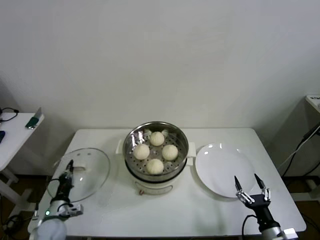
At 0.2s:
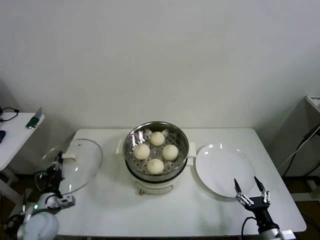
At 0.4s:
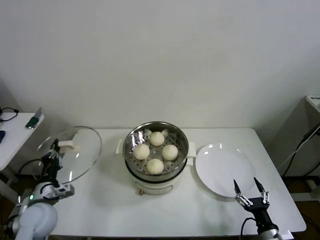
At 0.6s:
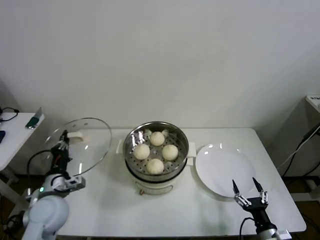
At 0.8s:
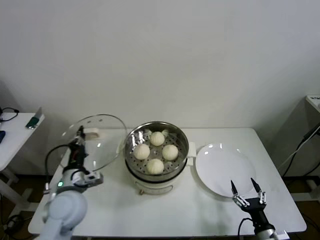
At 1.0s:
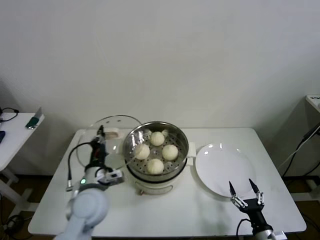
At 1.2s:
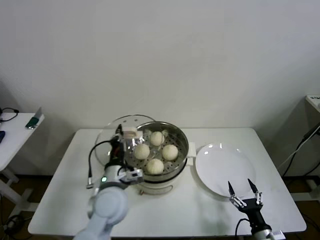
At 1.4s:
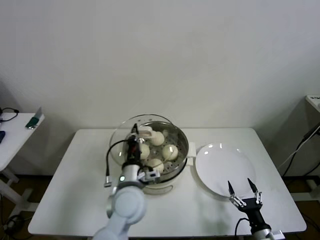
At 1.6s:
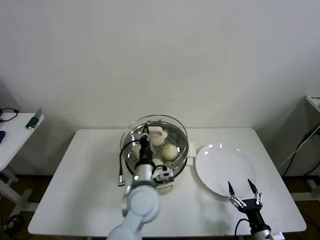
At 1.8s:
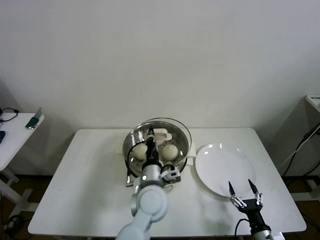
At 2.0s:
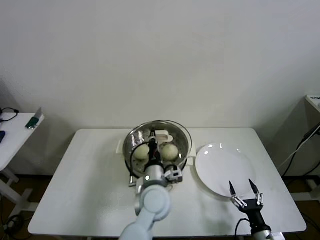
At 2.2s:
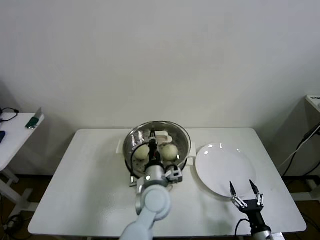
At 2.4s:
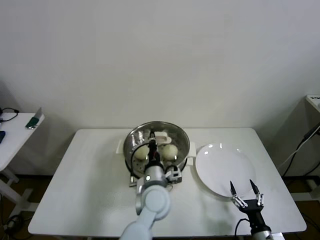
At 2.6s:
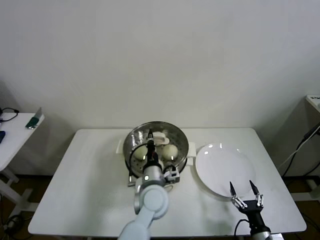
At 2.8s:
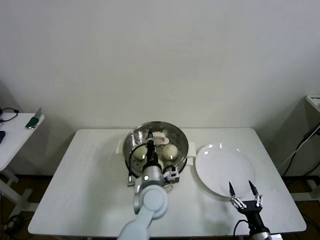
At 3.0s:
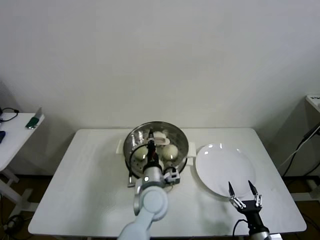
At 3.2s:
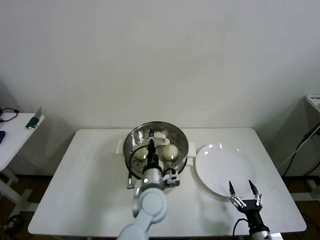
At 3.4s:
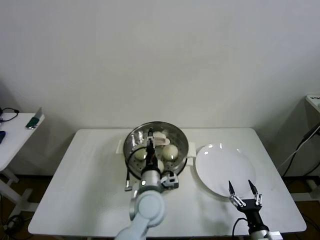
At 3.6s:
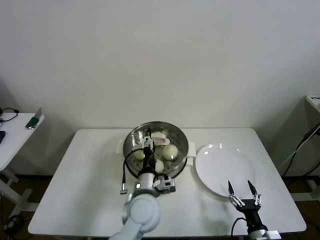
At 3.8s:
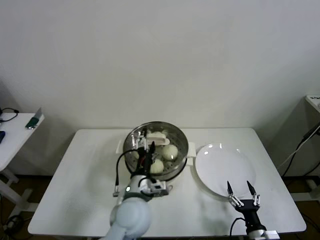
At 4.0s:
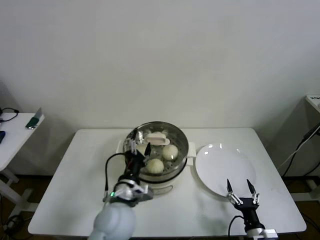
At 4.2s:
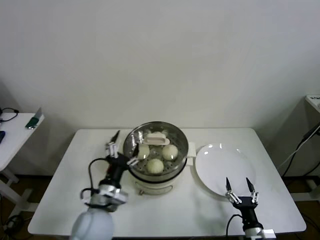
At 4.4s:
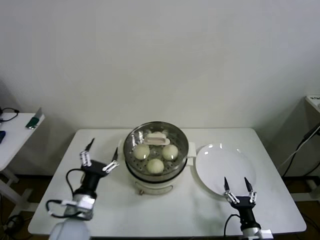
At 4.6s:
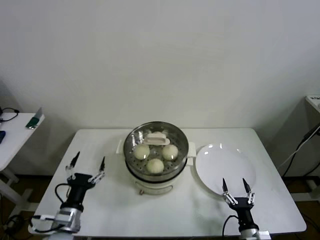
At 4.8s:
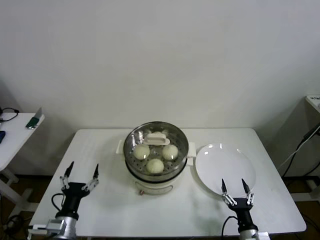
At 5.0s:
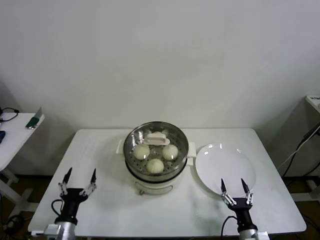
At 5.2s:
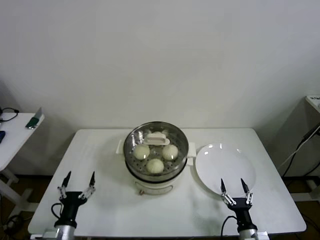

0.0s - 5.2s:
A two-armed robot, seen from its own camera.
Step, 0.0s - 3.8s: Place the pot lid on the steamer with left gripper.
0.0s - 1.8s: The left gripper is displaced to the right and upward by approximately 40 cm.
1.8s - 3.4s: The left gripper opens.
3.4s - 5.2s: The left gripper goes approximately 30 cm to the left and backward, and opens.

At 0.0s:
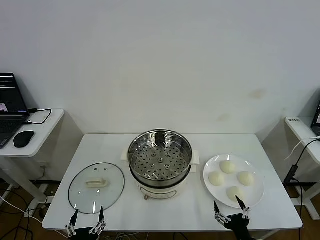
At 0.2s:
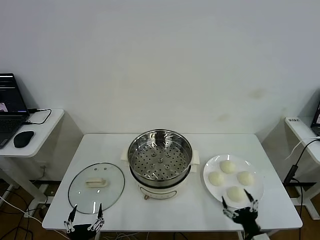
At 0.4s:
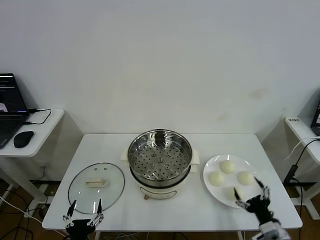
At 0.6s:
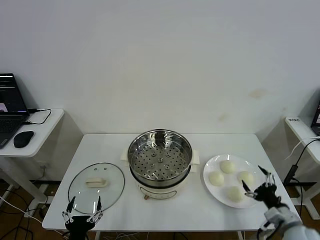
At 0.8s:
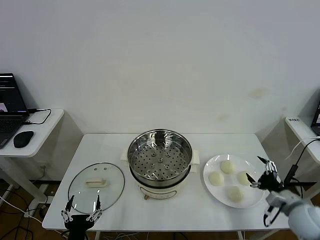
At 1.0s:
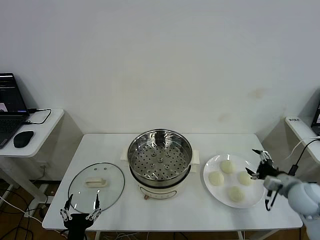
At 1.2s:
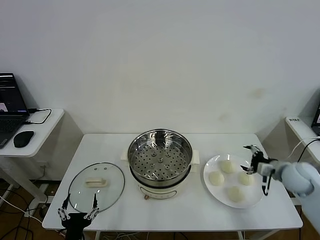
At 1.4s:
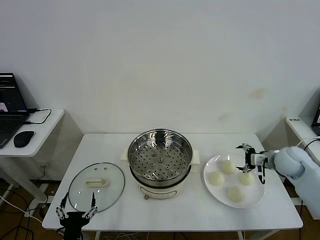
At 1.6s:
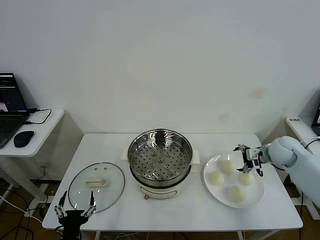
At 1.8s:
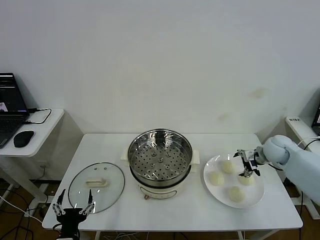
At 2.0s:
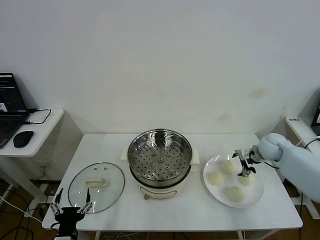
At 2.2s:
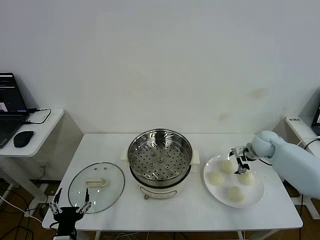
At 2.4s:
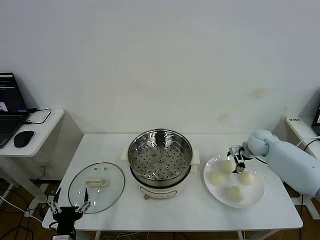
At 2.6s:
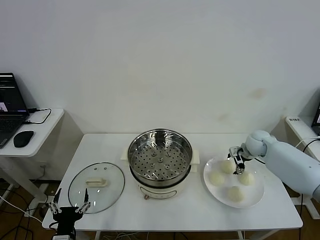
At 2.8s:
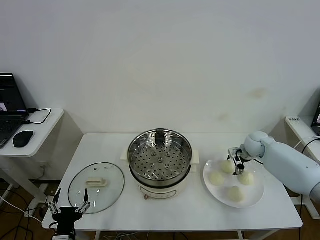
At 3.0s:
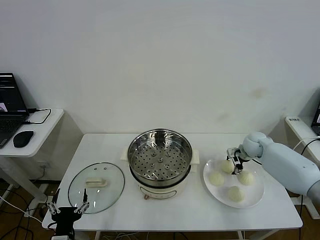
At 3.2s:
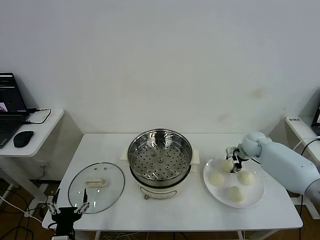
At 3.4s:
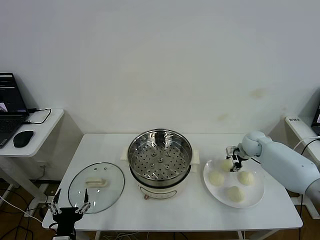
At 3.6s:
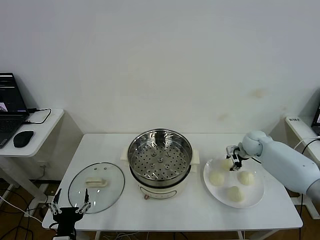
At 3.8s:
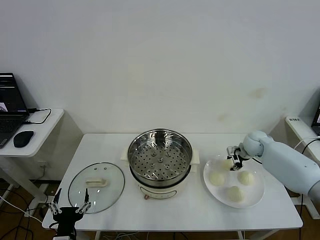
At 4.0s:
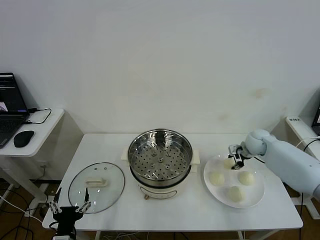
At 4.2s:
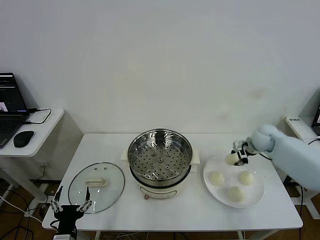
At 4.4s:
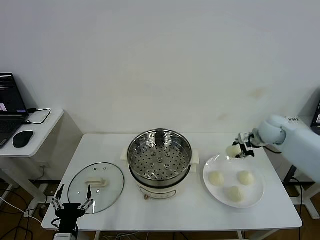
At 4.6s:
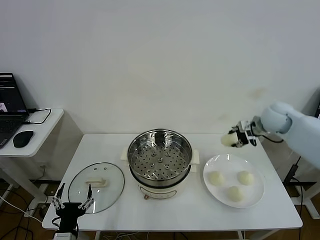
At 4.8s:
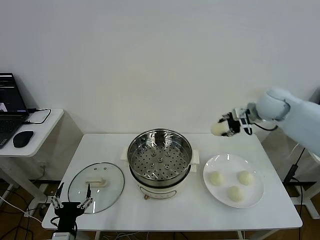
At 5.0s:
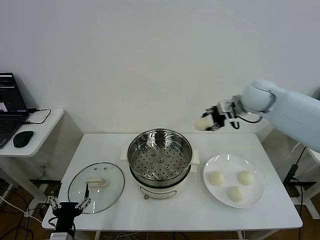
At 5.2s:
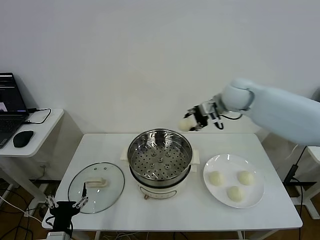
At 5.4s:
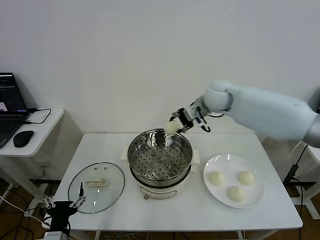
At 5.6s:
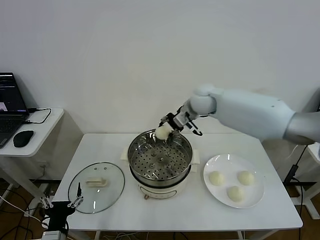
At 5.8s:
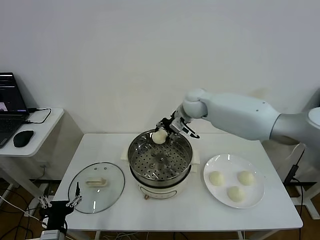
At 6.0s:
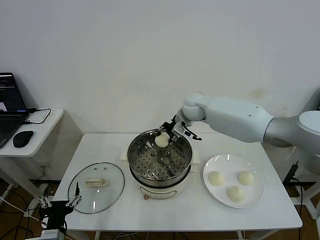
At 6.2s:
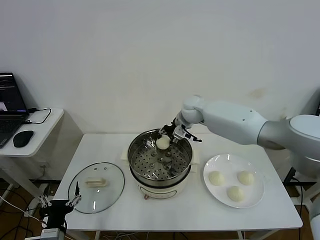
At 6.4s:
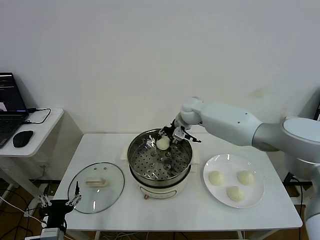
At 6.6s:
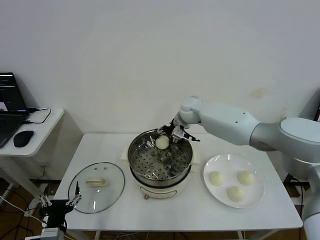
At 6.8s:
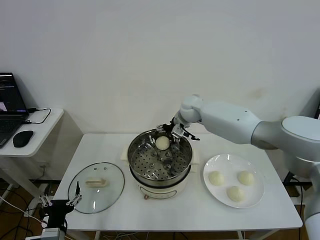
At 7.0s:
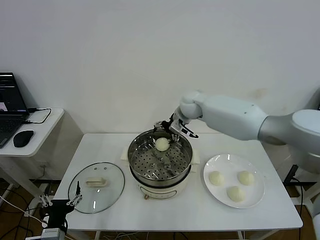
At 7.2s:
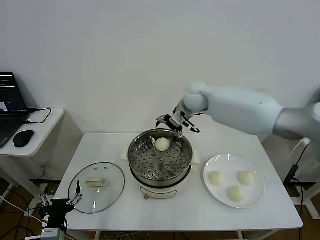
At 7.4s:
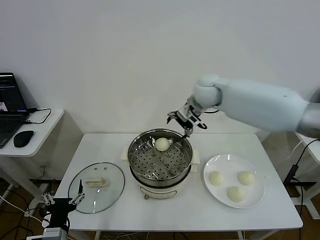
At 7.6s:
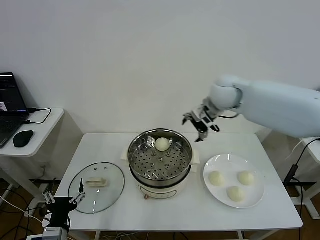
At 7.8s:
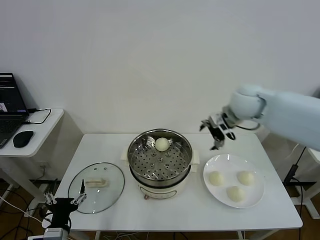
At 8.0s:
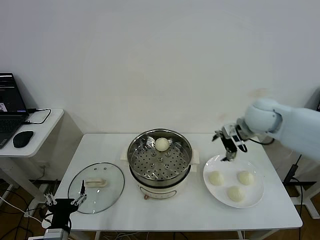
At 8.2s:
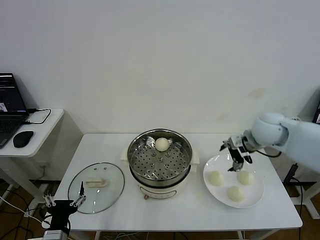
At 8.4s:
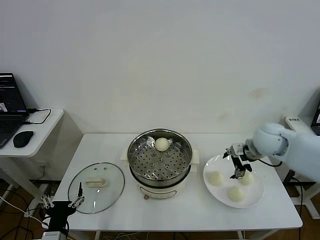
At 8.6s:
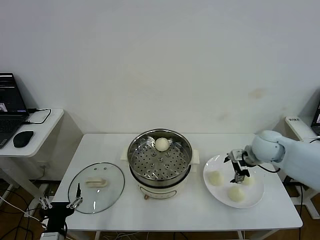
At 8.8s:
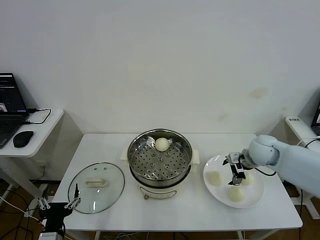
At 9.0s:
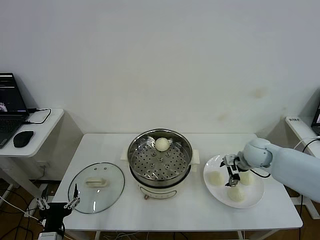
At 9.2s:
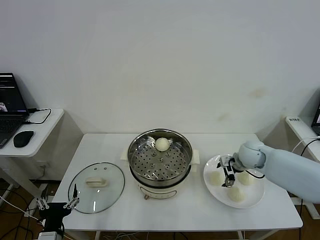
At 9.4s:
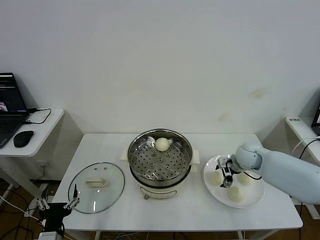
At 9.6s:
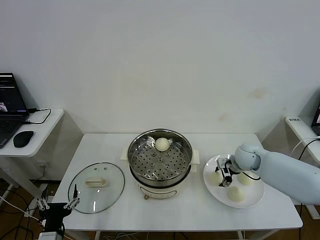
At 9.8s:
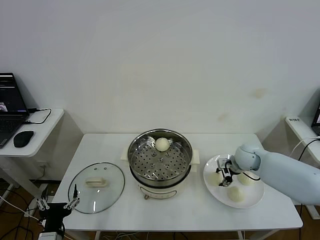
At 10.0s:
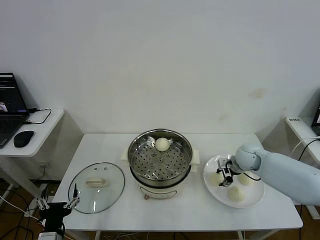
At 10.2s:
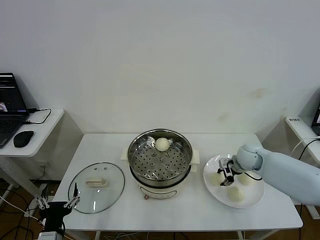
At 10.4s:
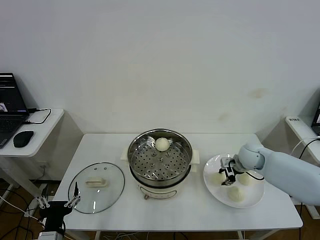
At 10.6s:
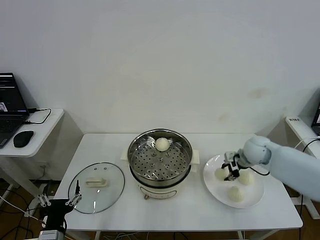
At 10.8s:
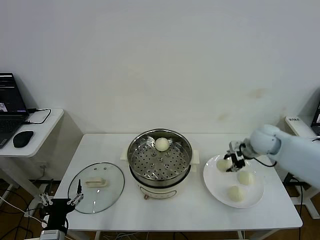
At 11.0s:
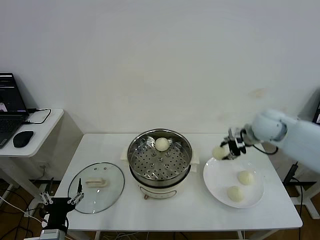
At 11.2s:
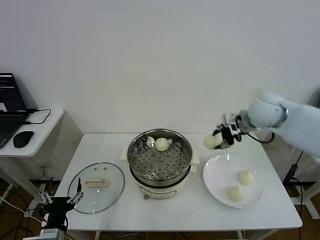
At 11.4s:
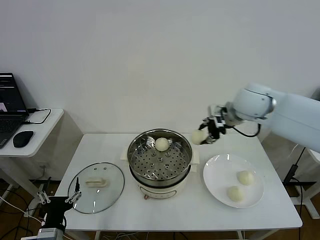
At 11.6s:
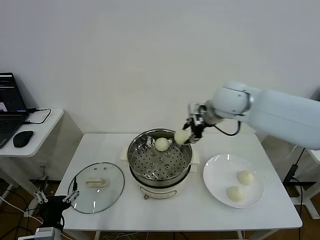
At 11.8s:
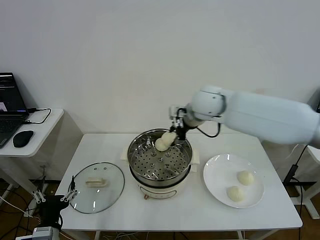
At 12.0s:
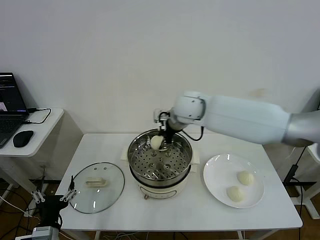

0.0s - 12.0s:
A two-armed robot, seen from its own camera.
Step, 0.0s - 3.2s: Grasp the baozi in the plate with right gripper.
Step, 3.4s - 6.6s: Place the baozi on the steamer with right gripper.
Step, 6.8s - 9.8s: Grasp the baozi in the plate with right gripper.
1.6s - 3.0s: The right gripper goes about 5 cm forward, and closes its fingers.
3.0s - 4.4s: The right gripper goes approximately 15 cm upward, and closes up.
4.4s - 6.0s: The right gripper is displaced to the left by about 25 cm.
6.0s - 7.6s: The right gripper goes approximately 15 cm to the right, upward and backward, and opens.
7.6s - 9.0s: The right gripper travels downward and to the right by about 25 cm.
9.0s - 10.4s: The right gripper closes its fingers.
10.4s - 12.0s: The right gripper moves to the left and upward, about 30 cm.

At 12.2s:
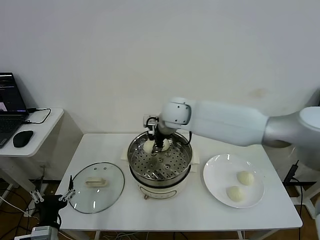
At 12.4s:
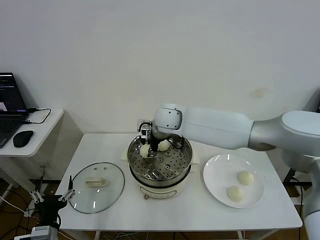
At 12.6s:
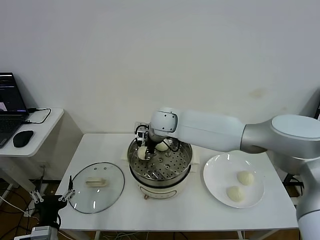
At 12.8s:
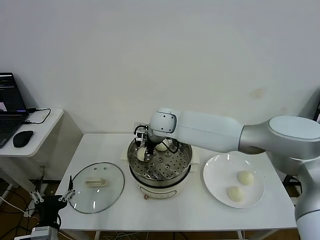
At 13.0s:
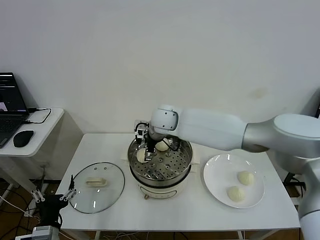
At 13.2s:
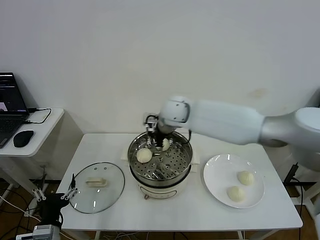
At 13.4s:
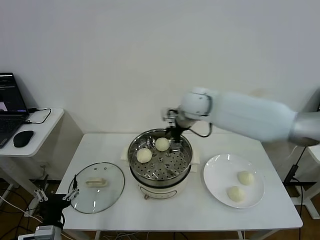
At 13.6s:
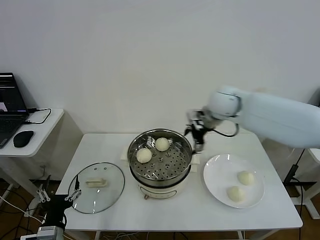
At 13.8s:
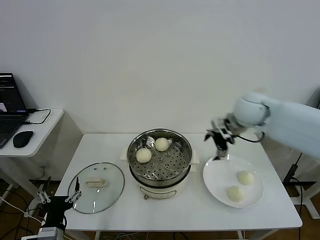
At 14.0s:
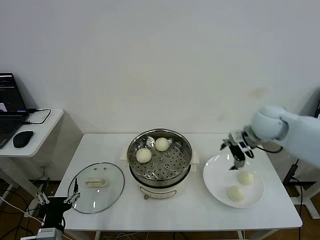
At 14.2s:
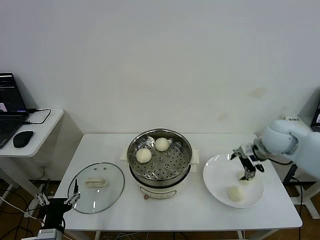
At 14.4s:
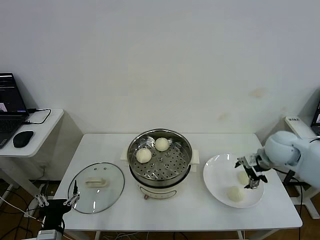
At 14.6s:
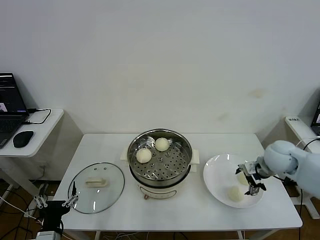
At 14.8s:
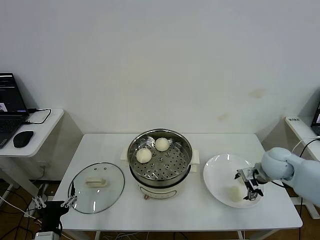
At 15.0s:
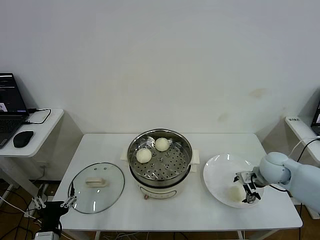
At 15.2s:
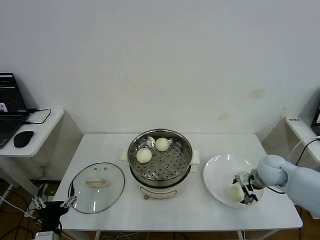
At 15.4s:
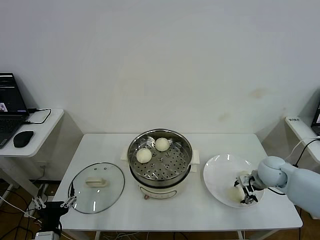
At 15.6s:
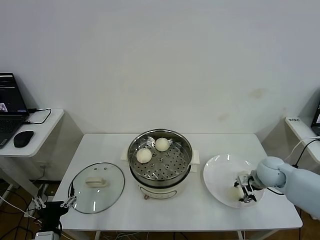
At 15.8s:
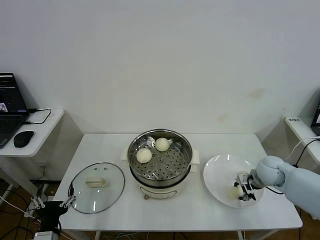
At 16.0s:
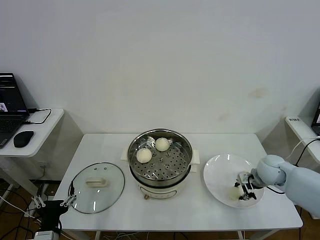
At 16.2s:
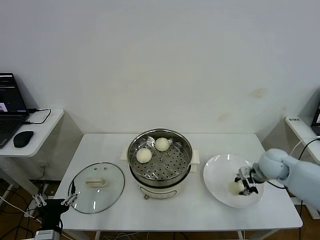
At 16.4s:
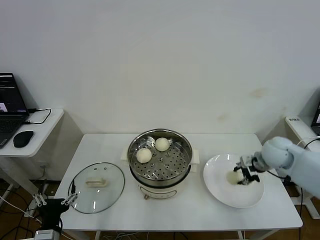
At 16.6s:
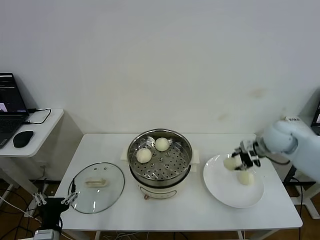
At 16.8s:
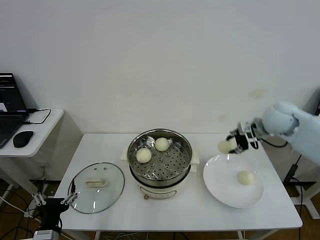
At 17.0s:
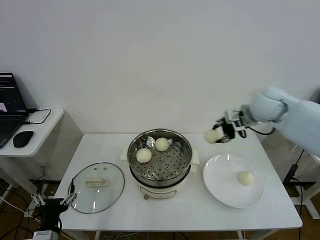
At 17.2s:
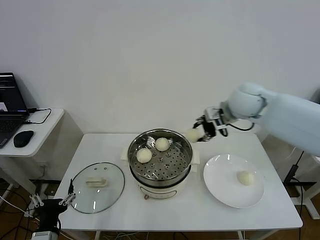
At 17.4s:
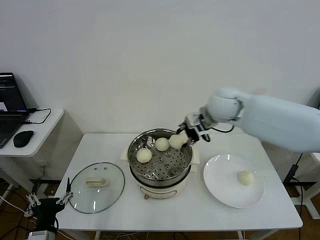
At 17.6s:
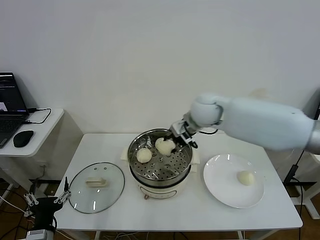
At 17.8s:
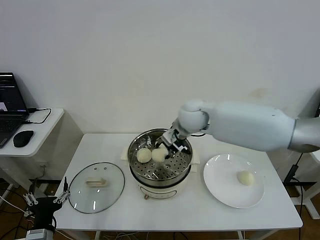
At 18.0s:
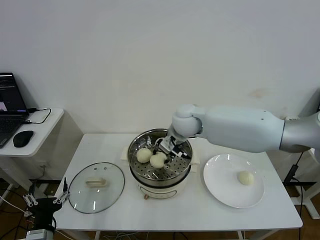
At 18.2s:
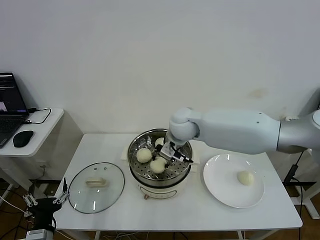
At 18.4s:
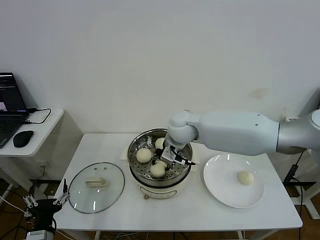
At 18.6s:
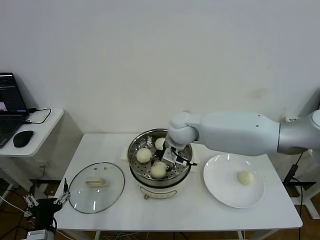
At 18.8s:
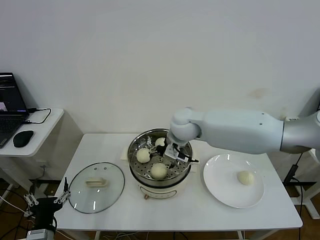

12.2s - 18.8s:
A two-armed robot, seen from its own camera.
Step, 13.0s - 15.6s: Grasp the baozi in the plate with right gripper.
Step, 15.8s - 18.6s: Place the baozi on the steamer with right gripper.
12.2s - 13.8s: The right gripper heads to the right, covering some 25 cm, and opens its fingers.
13.8s - 15.4s: The right gripper heads downward and to the right, covering some 20 cm, and closes up.
15.4s - 17.2s: The right gripper travels upward and to the left by about 30 cm, and closes up.
17.2s - 18.8s: The right gripper travels to the left and downward by approximately 15 cm, and opens.
